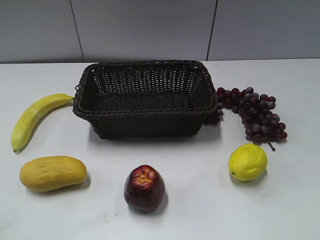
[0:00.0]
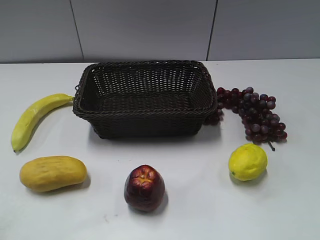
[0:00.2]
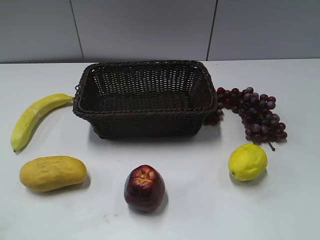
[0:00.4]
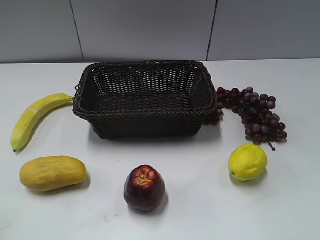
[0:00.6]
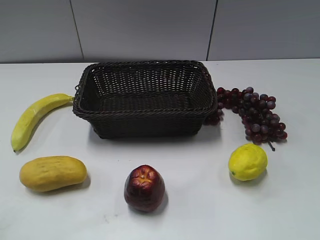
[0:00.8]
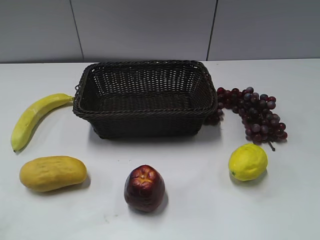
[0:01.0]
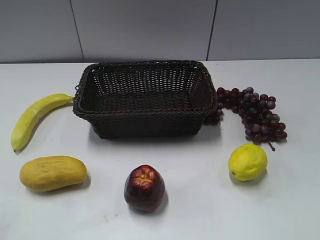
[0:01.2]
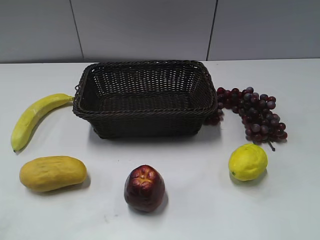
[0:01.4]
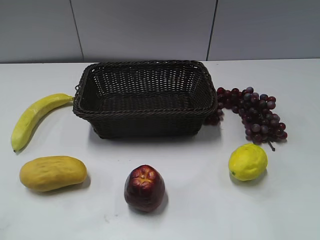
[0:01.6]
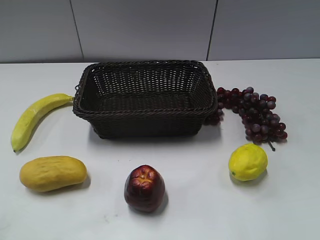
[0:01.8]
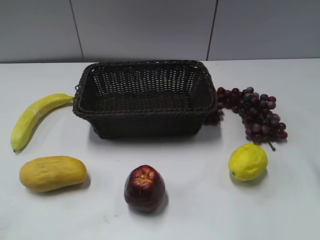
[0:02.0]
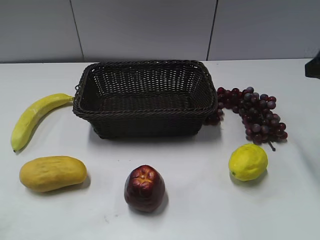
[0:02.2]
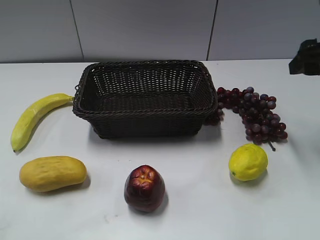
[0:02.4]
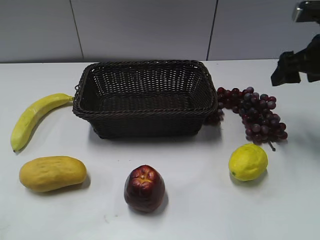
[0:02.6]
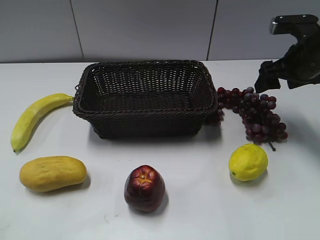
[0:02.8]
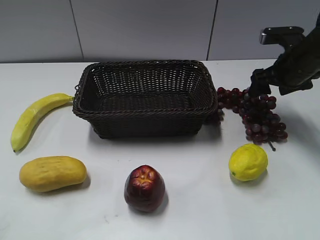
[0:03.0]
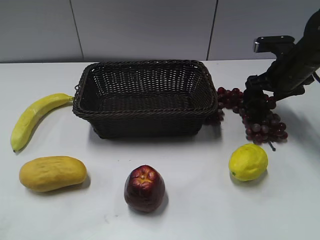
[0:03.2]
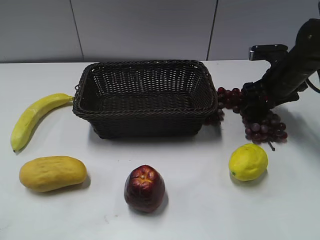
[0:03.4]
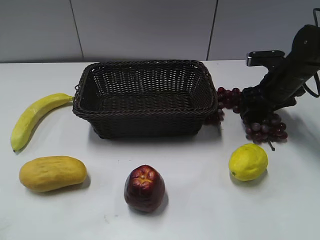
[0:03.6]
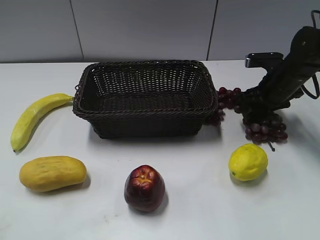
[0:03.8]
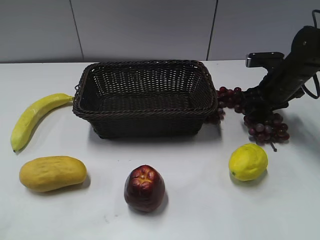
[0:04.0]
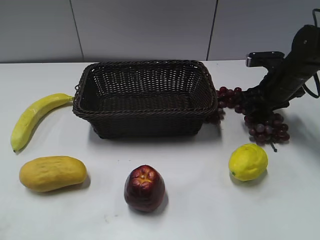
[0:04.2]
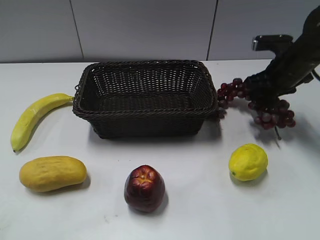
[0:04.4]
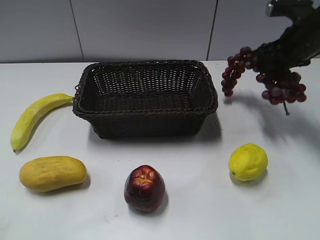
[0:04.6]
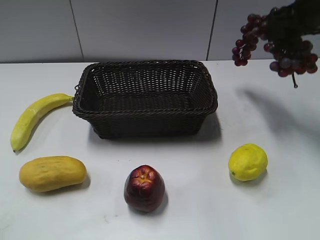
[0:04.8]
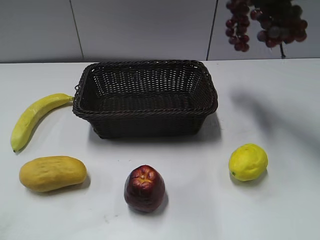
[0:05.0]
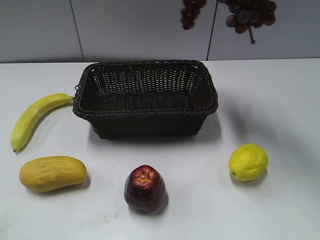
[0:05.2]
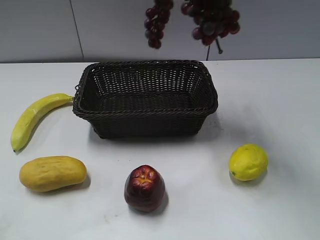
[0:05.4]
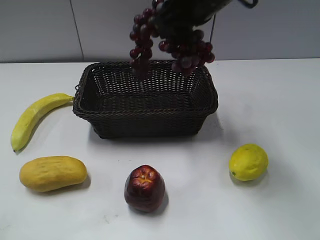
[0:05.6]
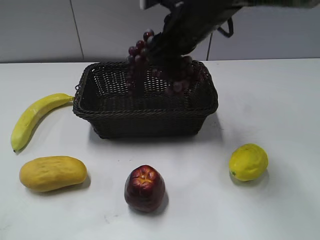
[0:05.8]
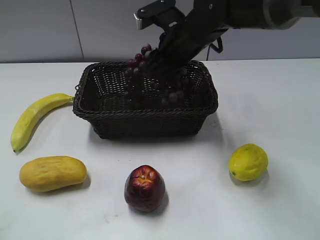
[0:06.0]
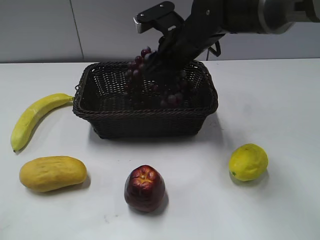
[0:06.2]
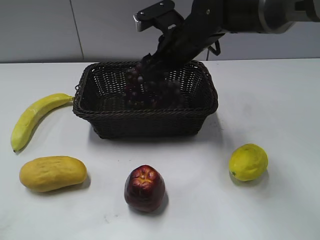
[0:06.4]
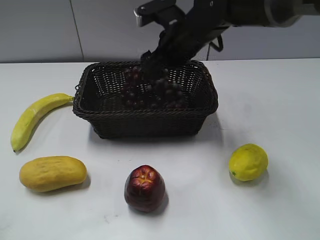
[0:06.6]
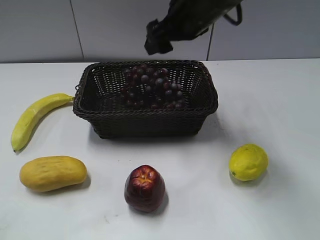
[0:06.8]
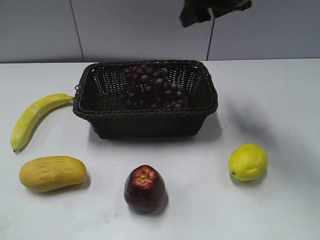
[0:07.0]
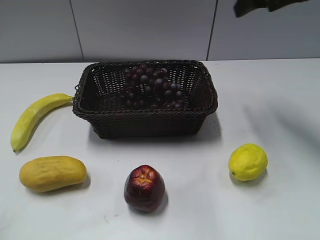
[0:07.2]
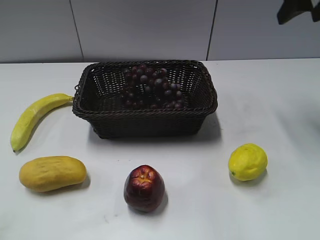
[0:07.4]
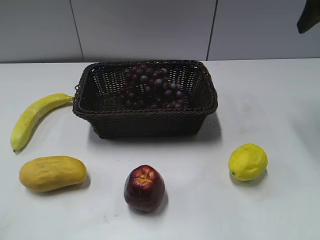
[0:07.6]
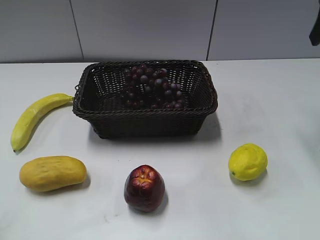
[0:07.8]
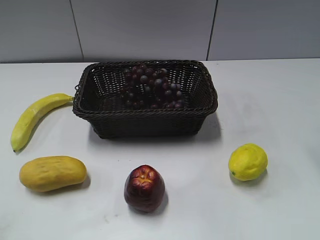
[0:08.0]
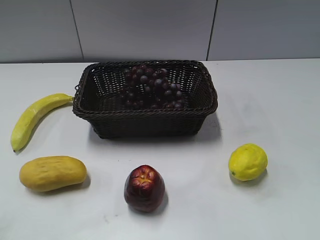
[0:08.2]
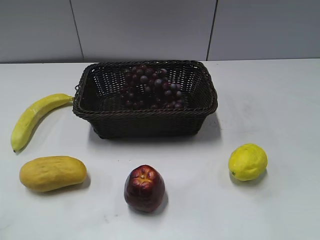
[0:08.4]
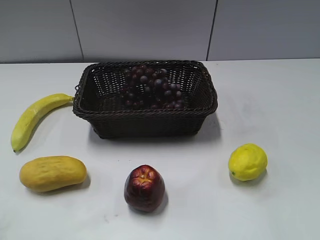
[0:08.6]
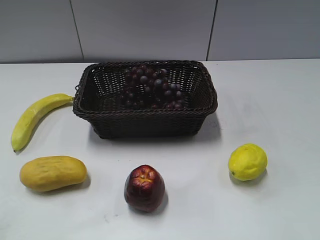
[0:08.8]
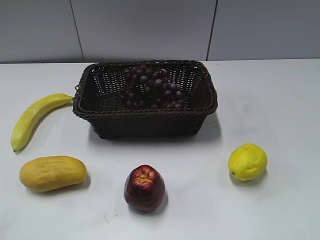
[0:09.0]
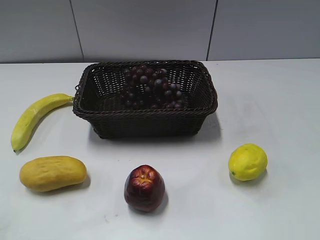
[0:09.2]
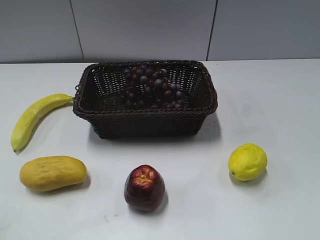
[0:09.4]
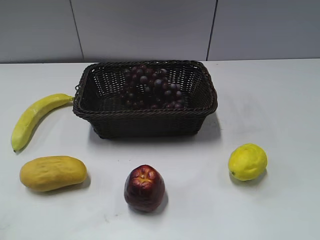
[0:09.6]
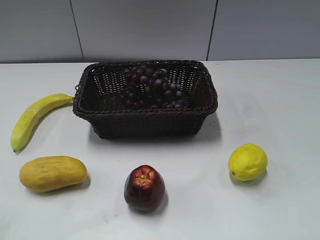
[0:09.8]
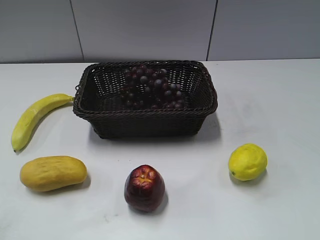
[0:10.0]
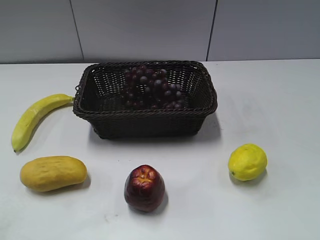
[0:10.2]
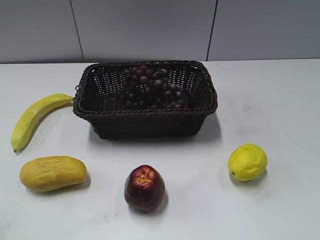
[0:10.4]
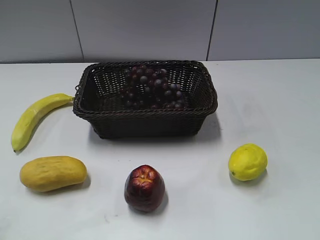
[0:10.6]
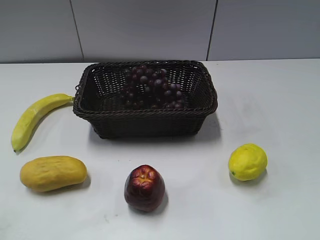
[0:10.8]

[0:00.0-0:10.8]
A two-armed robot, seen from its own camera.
Step, 0:02.2 to 0:03.8: Grasp the grape with right gripper.
Step, 0:04.2 to 0:06.2: Place the grape in the basket with right gripper.
0:01.6 to 0:03.0: The right gripper travels forward and downward by approximately 35 cm.
0:03.0 to 0:04.6: The right gripper shifts approximately 5 cm upward, and closes up.
0:04.6 to 0:06.2: The right gripper goes approximately 20 cm to the left.
0:06.2 to 0:07.8: The right gripper travels to the right and upward by about 30 cm, and opens its fingers.
